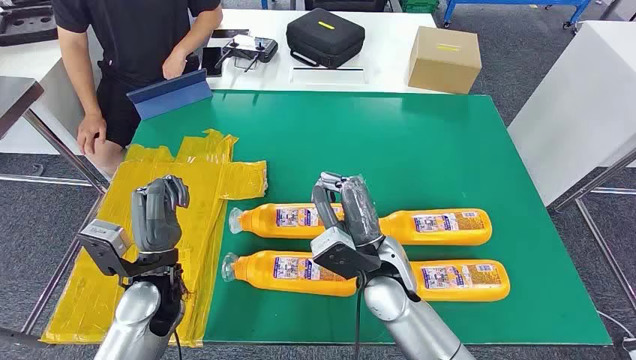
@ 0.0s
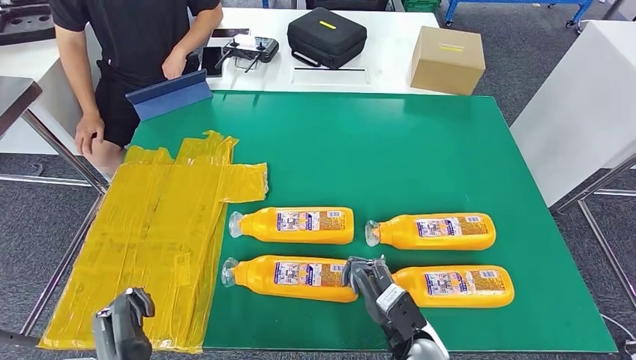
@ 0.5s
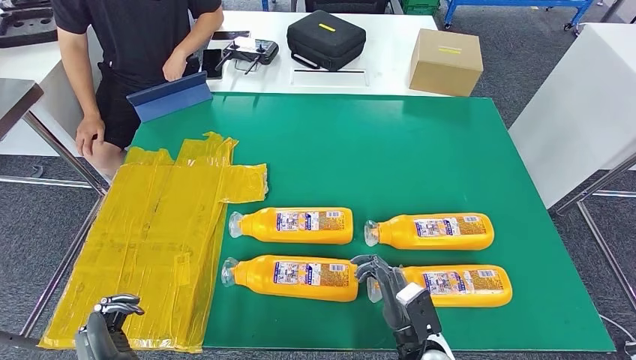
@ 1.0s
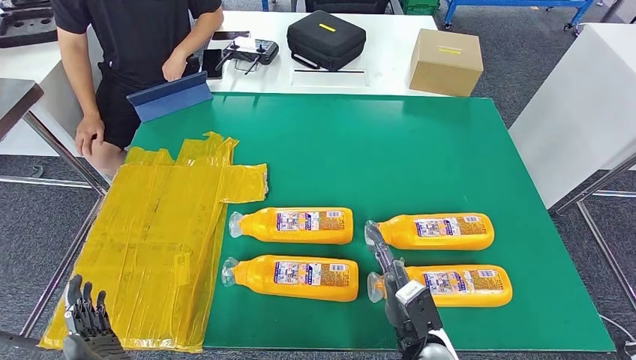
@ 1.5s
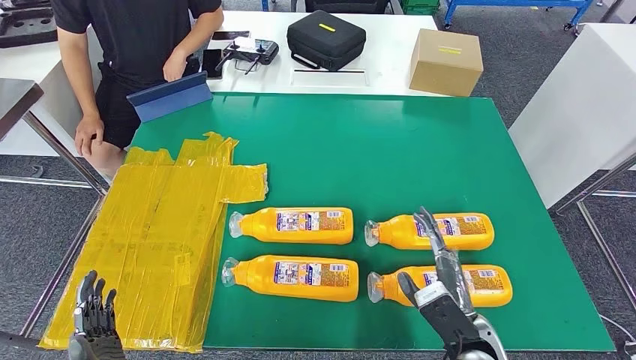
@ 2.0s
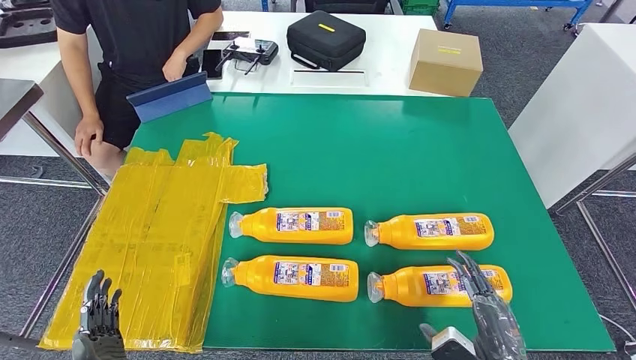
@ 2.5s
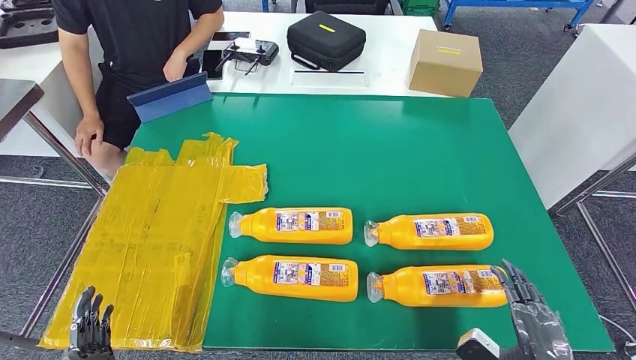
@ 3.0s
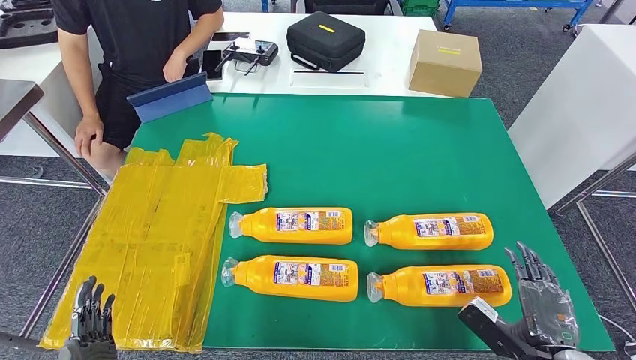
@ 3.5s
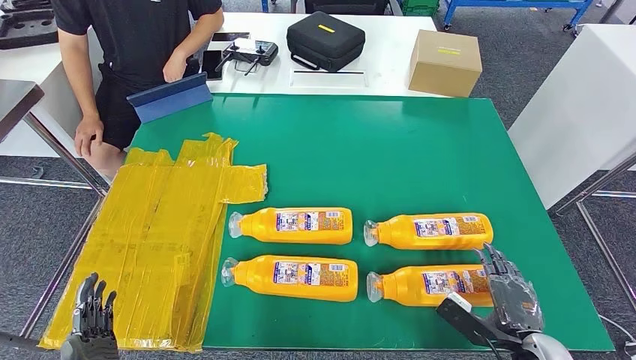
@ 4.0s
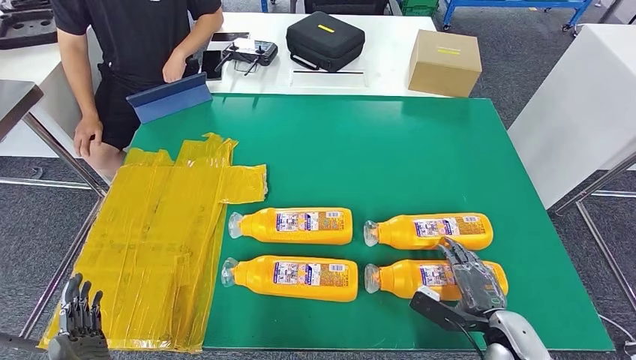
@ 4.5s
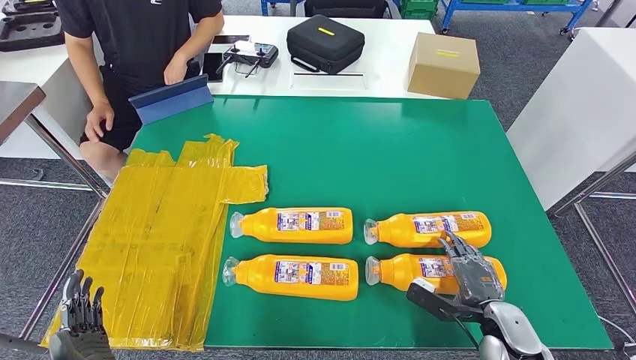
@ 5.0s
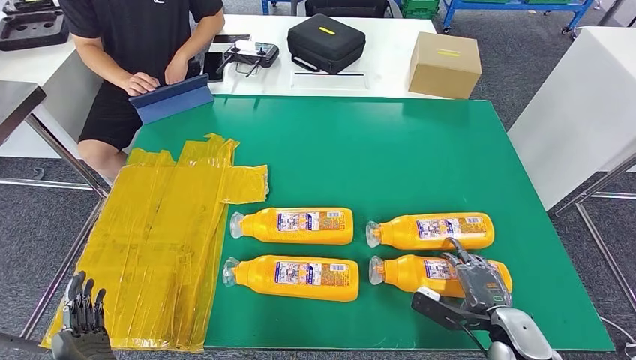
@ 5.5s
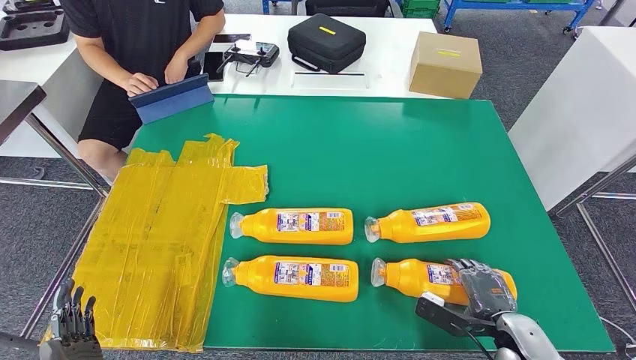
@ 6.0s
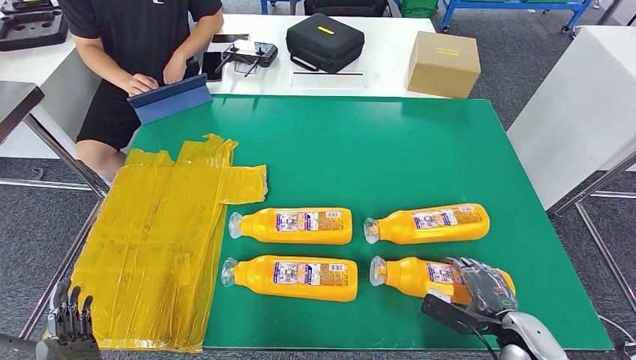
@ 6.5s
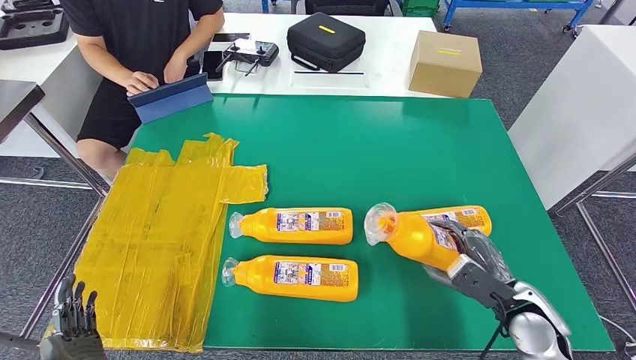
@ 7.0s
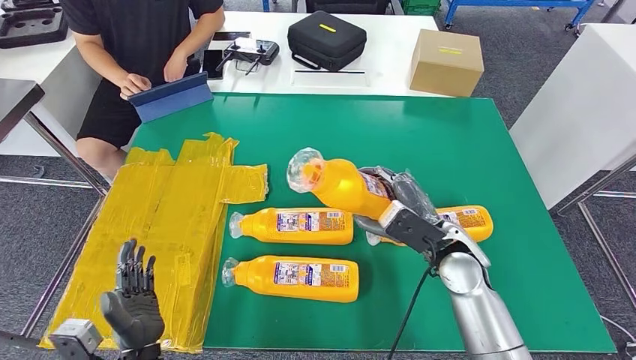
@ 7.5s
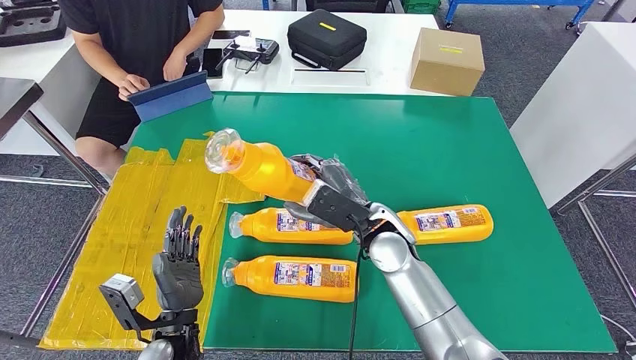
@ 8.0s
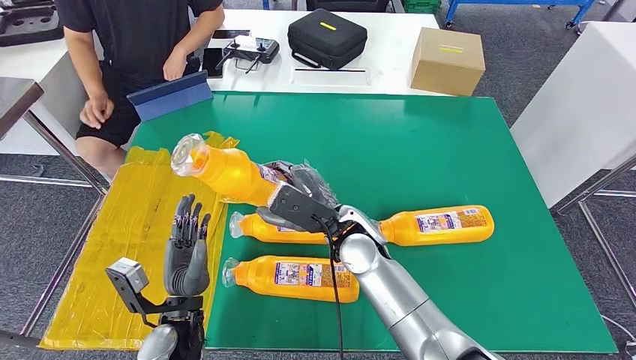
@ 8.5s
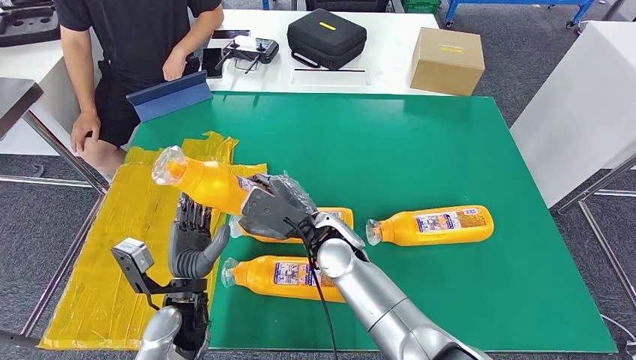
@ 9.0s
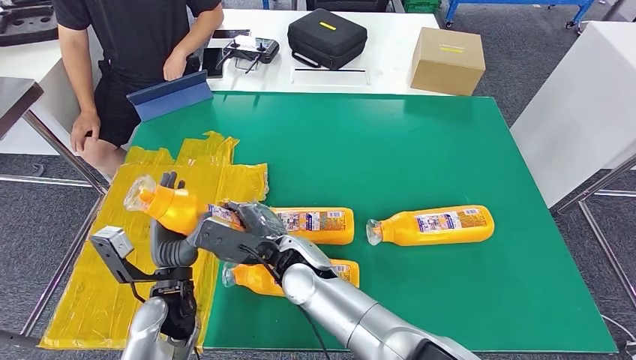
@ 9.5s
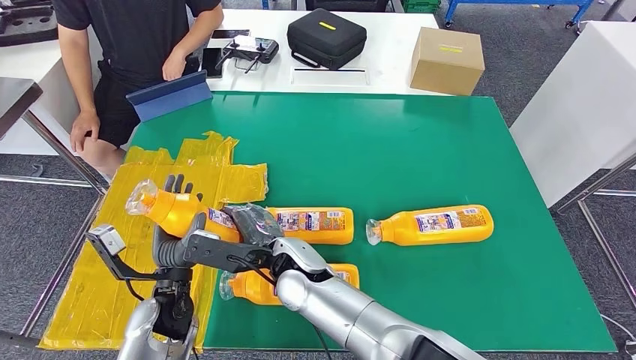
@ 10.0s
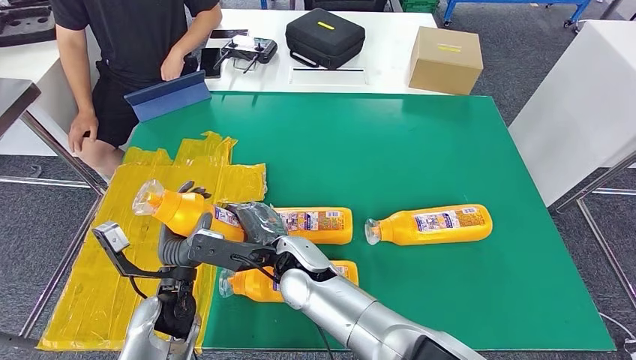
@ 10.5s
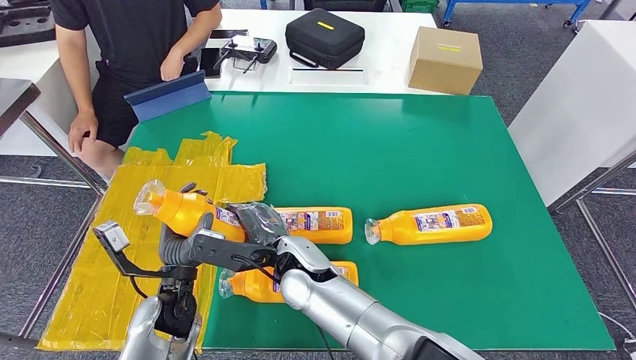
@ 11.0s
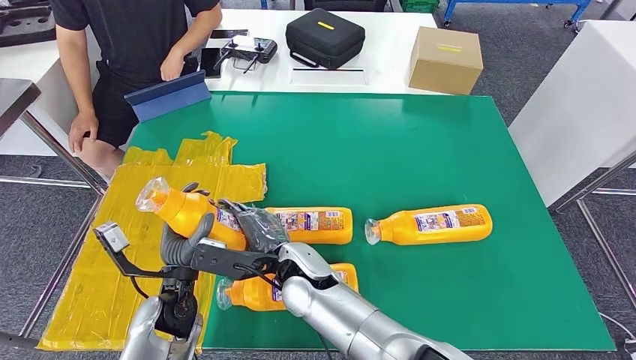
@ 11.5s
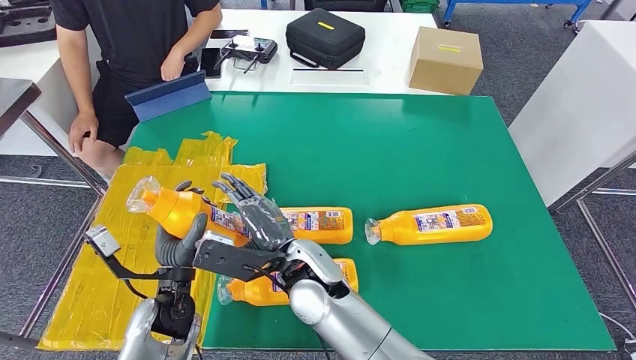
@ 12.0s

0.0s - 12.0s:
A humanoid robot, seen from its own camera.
Step, 0.0s - 8.0s: Take the bottle from the table.
2.0s - 4.0s: The right hand moves to the right, approximately 10 cm.
8.0s - 10.0s: The left hand is displaced forward by roughly 5 cm. The right hand shifts about 15 cm to the left.
10.0s - 12.0s: The hands move only a little.

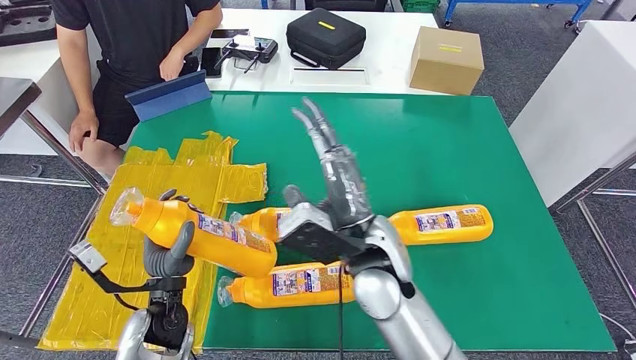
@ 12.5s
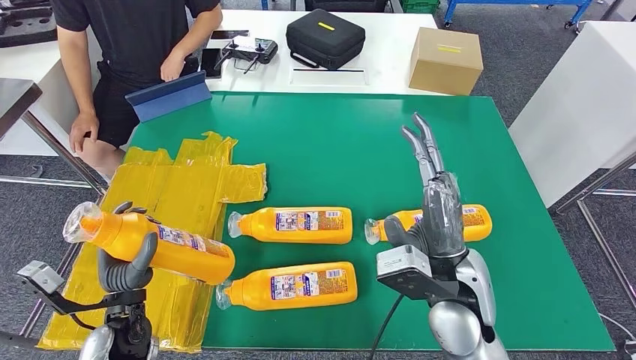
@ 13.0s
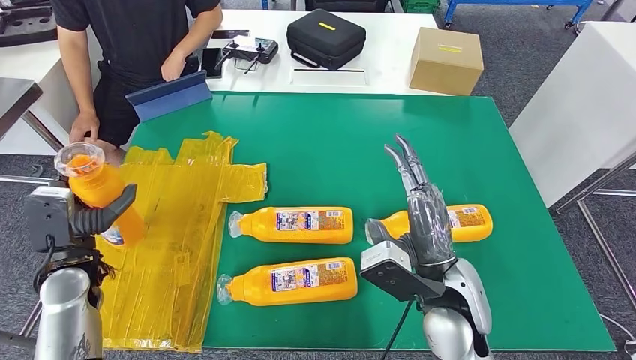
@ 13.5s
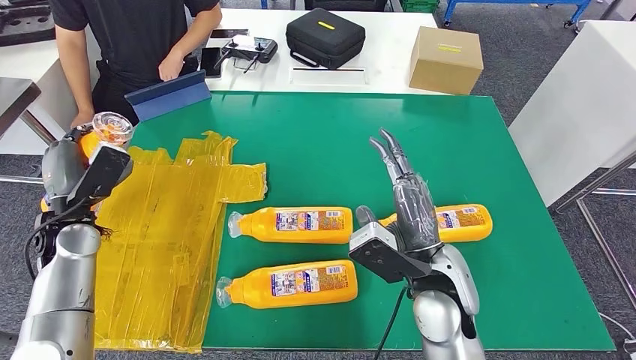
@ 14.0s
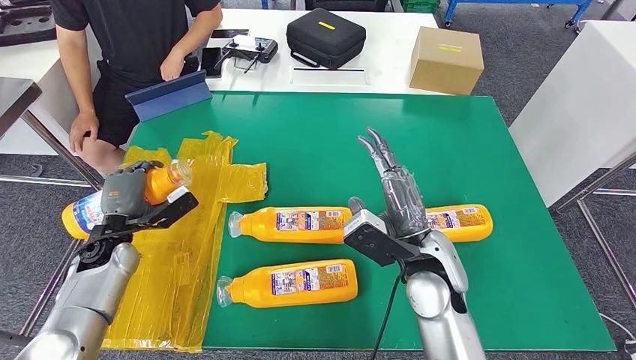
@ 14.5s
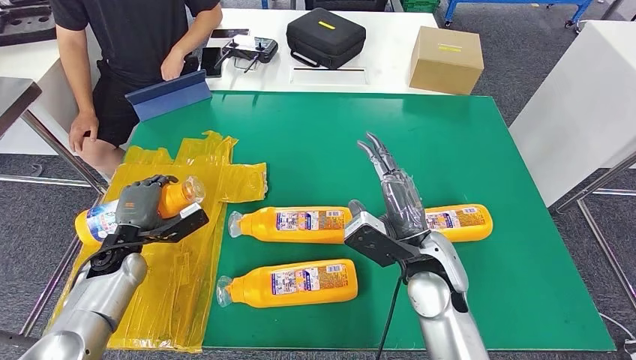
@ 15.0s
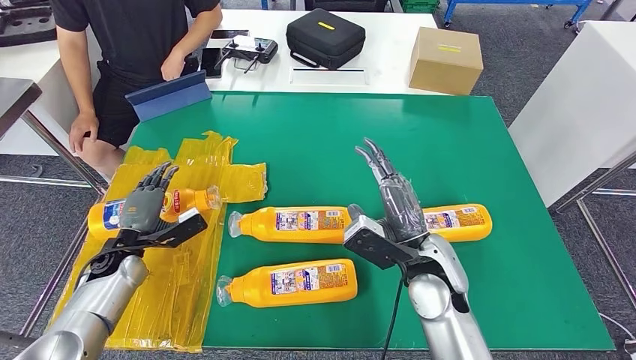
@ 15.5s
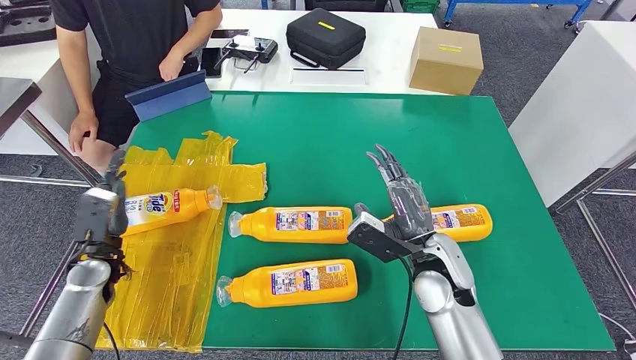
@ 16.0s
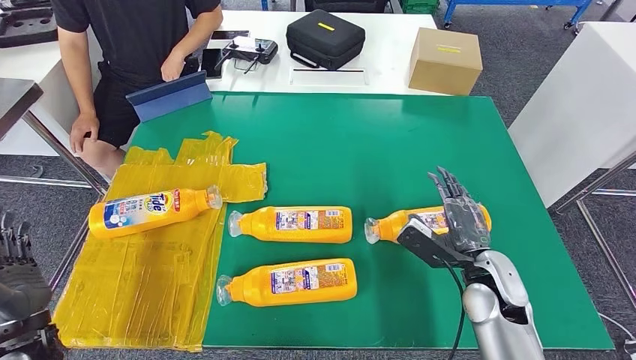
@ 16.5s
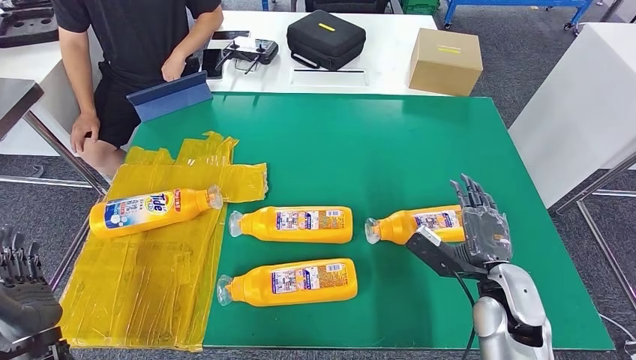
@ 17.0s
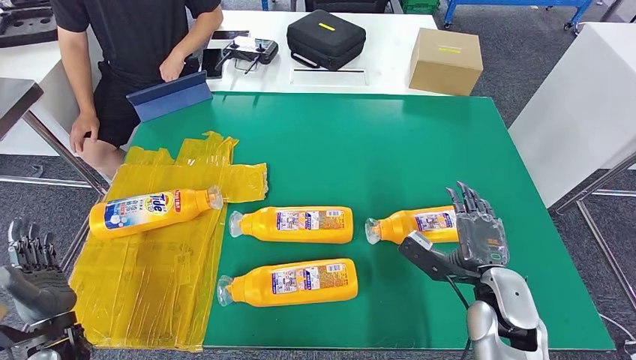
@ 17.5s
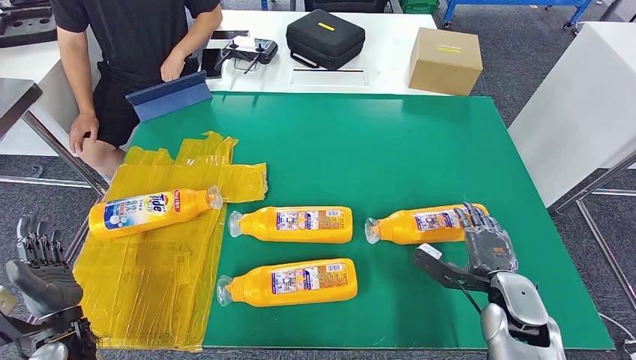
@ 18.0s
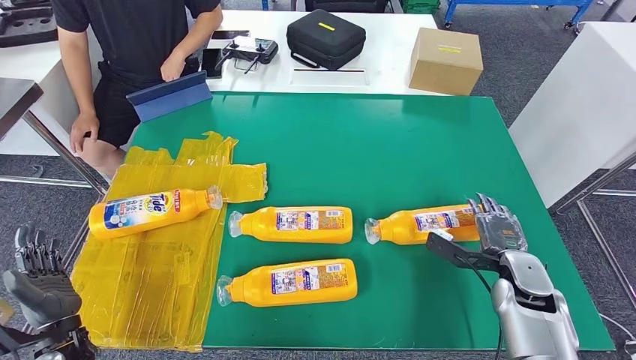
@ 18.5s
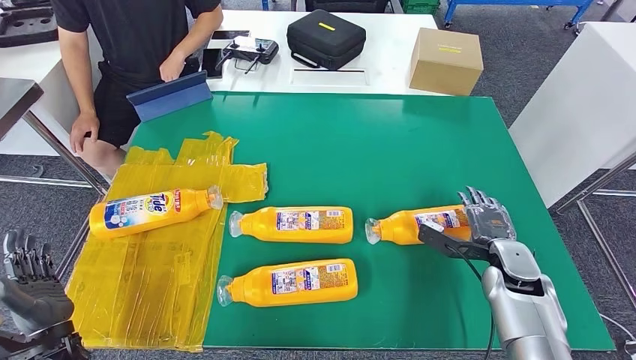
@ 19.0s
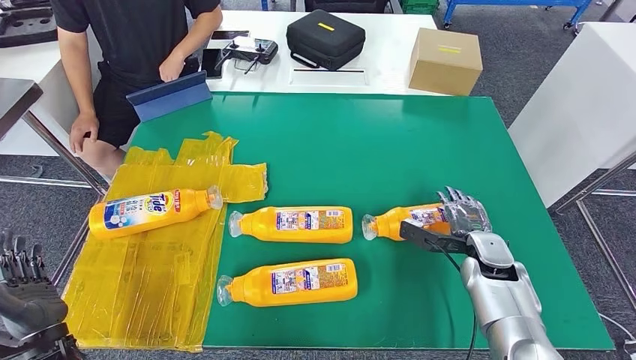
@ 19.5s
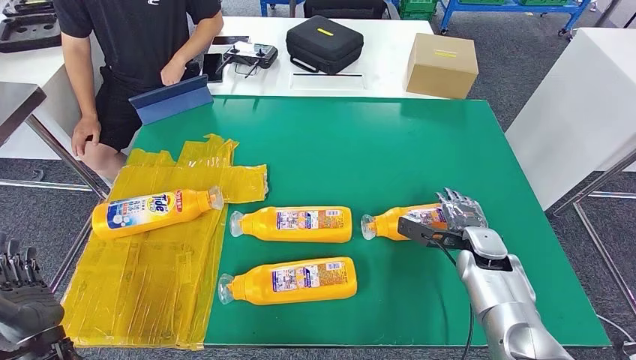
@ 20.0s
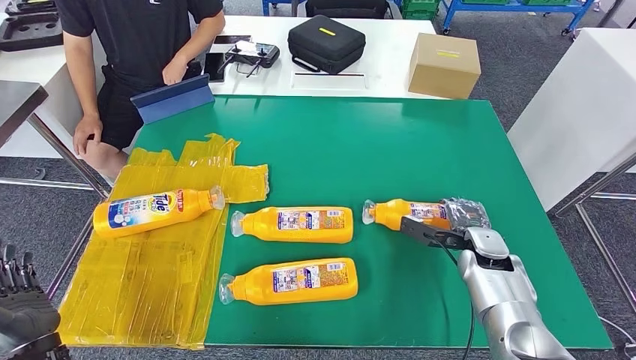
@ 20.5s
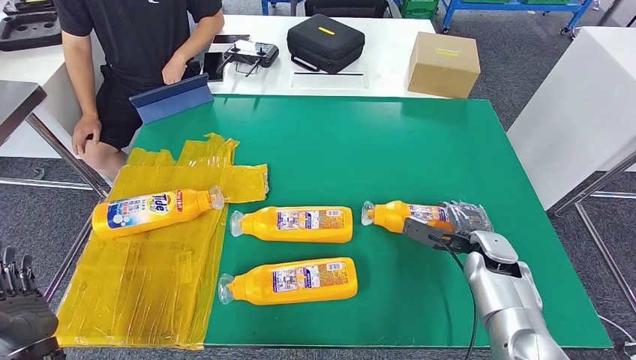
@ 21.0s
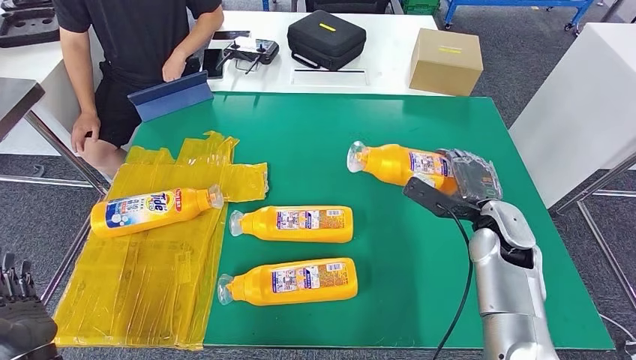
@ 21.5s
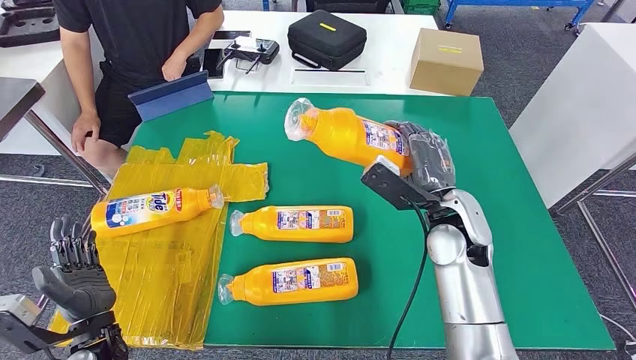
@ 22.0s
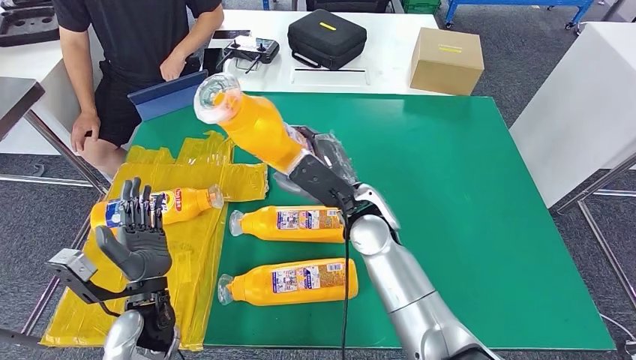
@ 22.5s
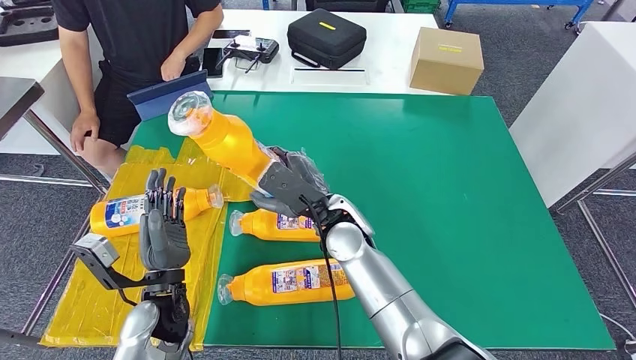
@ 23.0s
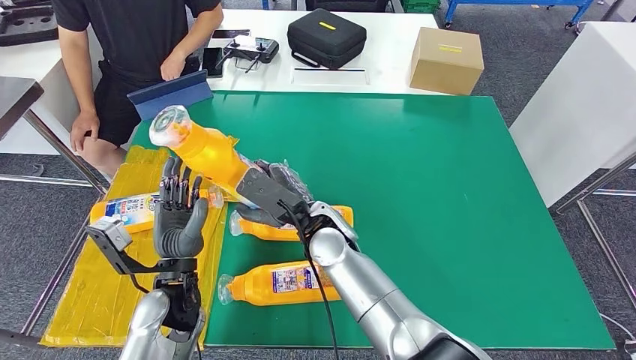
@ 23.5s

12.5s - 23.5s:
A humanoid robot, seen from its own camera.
Step, 12.5s - 15.5s: Flip the bottle to face forward.
16.0s - 18.0s: The right hand is displaced to the right and downward by some 15 cm, while the left hand is displaced backward by some 10 cm.
